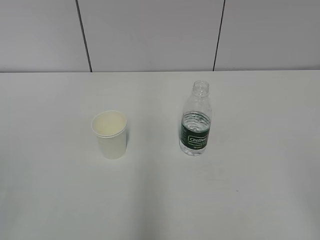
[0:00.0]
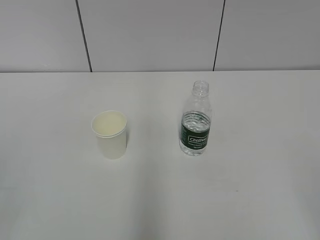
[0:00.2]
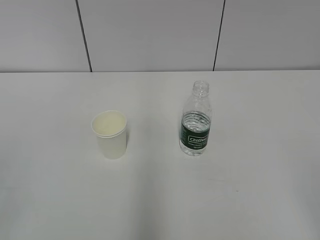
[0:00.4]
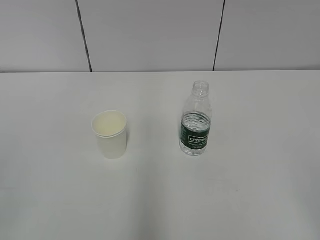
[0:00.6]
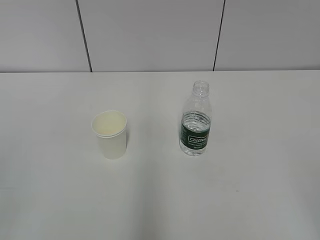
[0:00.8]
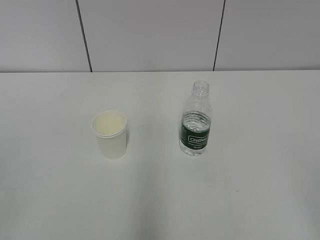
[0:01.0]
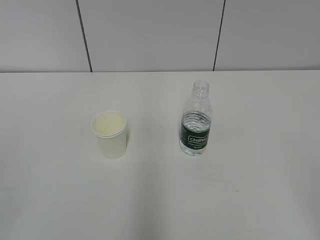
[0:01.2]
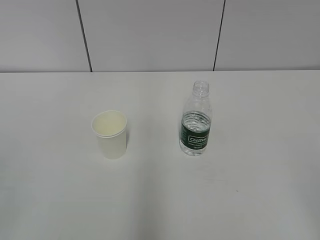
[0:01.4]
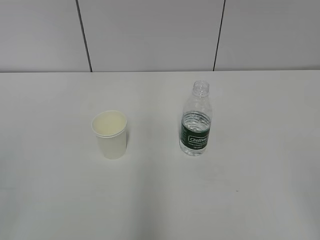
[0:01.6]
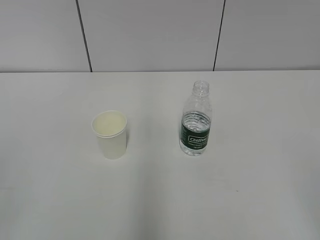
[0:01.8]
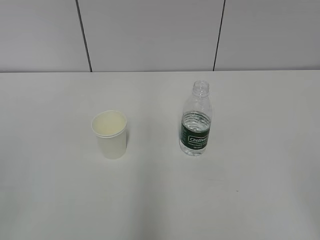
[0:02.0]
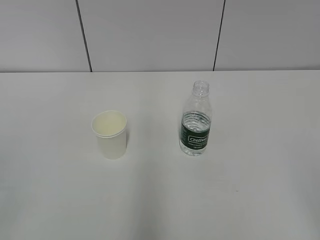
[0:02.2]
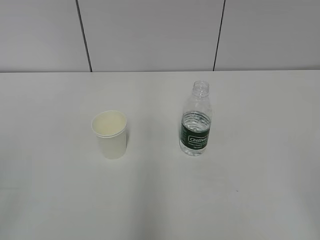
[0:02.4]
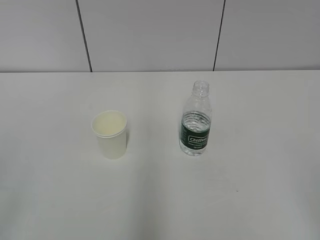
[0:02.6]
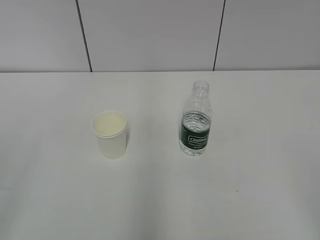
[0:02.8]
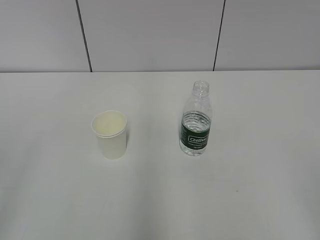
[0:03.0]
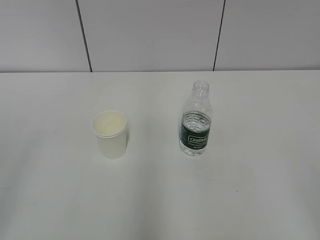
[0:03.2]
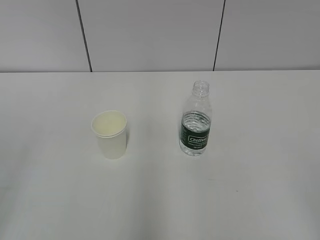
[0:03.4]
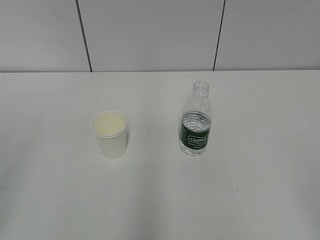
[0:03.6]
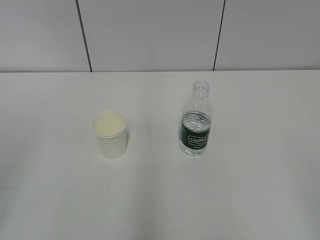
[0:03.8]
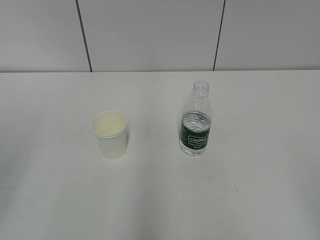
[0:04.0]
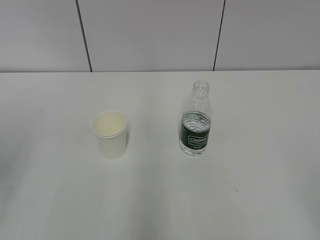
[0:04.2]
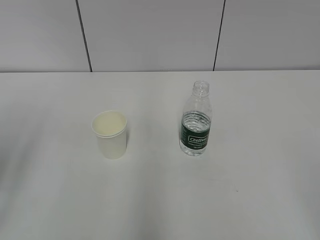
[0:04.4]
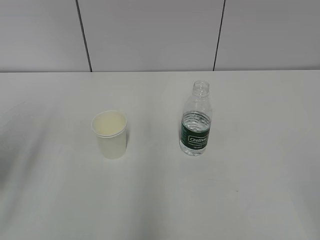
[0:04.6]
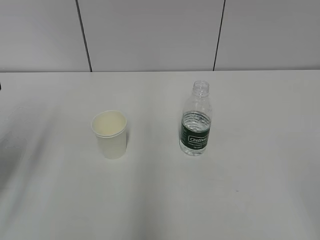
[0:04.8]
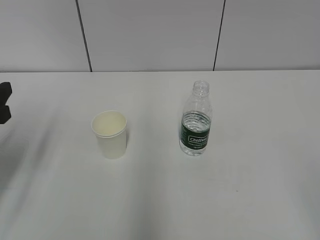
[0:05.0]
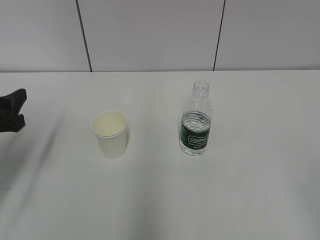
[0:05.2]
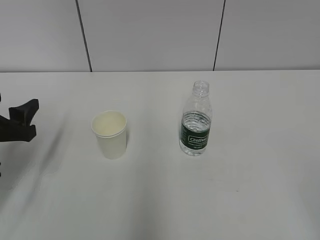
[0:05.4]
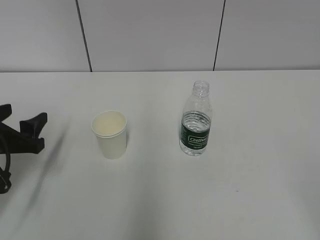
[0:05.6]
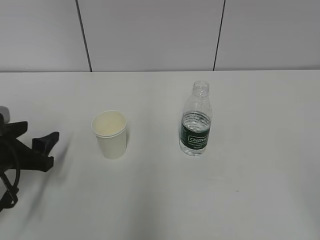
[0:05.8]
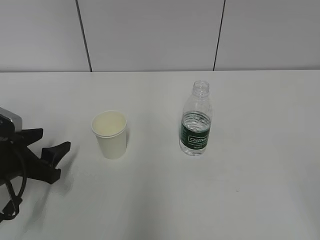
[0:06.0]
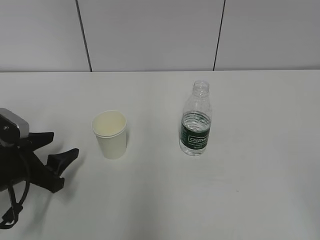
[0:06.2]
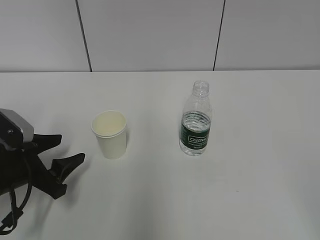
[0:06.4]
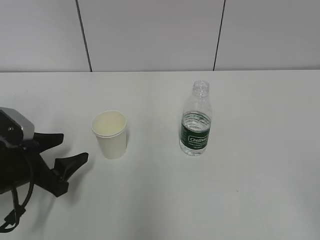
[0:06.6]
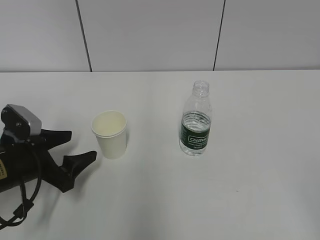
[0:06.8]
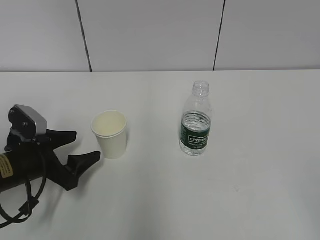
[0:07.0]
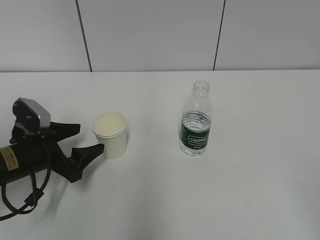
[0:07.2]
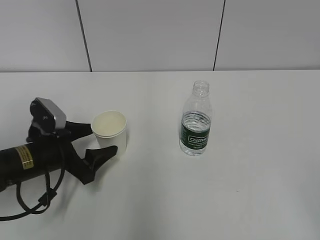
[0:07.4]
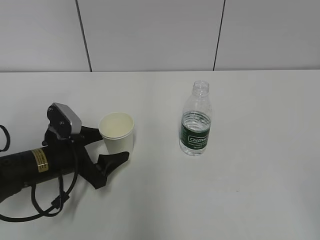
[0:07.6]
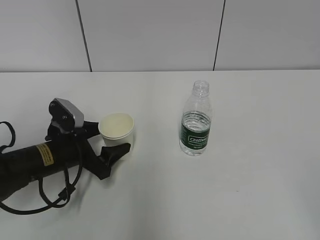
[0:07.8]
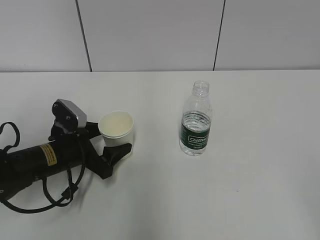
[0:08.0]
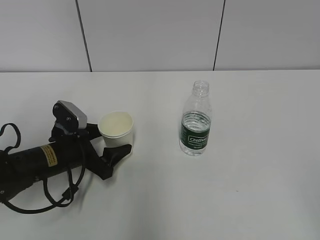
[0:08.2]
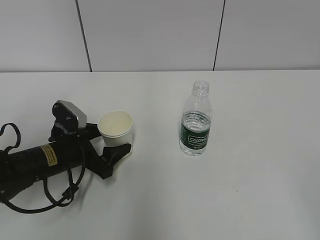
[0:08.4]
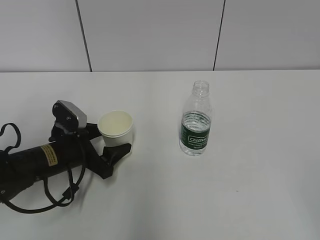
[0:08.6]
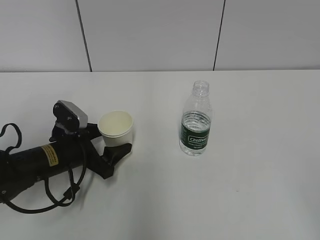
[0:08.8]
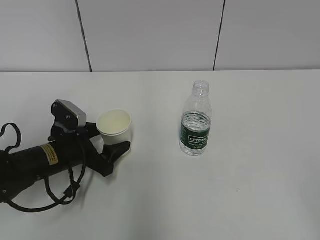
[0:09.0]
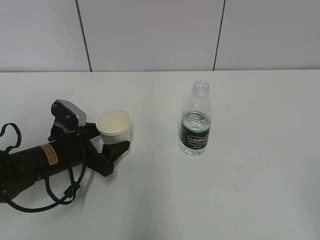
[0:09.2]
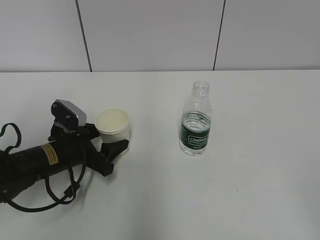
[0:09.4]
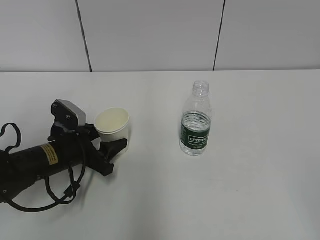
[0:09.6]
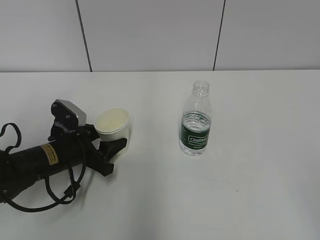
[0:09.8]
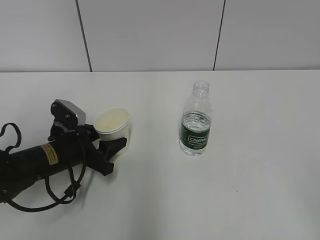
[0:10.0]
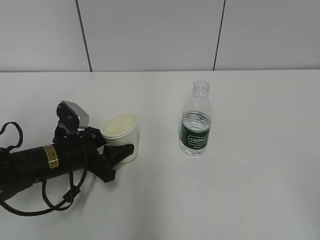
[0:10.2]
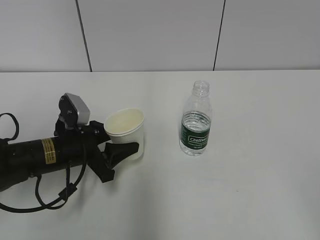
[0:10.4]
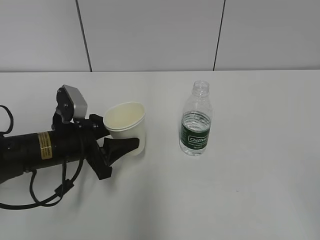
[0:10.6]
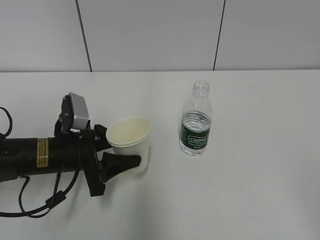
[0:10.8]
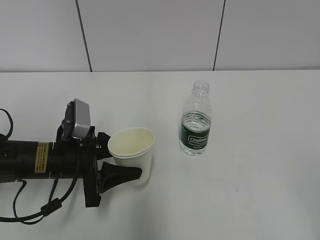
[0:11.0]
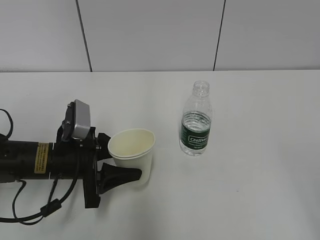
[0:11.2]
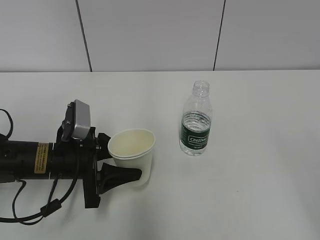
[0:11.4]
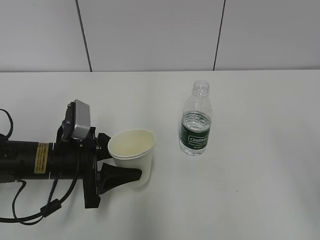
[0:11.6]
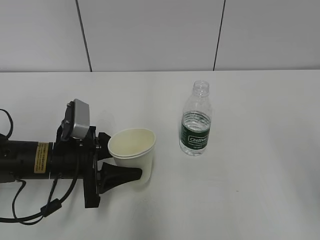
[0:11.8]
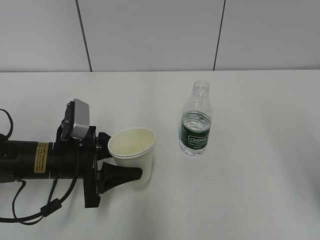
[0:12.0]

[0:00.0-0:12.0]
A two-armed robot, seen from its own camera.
Step, 0:00.0 to 0:08.0: Grab the paper cup with the left hand.
0:04.4 to 0:06.0: The left gripper goes some 20 cm downward and forward.
0:06.0 to 0:07.6: The left gripper goes roughly 5 cm to the right, and opens its fingers.
0:07.6 to 0:09.0: The grippers make only small movements.
0:09.0 to 0:10.4: The left gripper closes up.
0:10.4 to 0:12.0: The right gripper is displaced forward by approximately 15 cm.

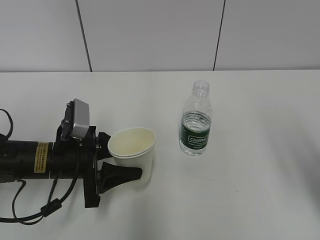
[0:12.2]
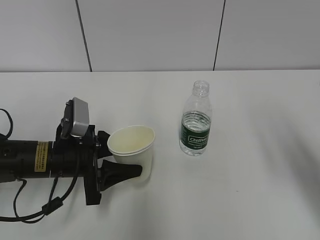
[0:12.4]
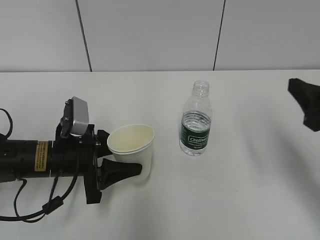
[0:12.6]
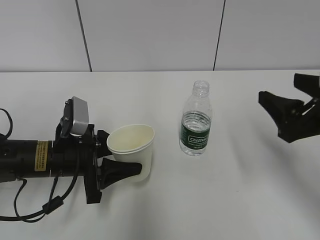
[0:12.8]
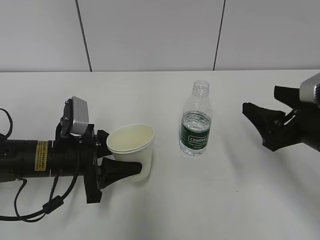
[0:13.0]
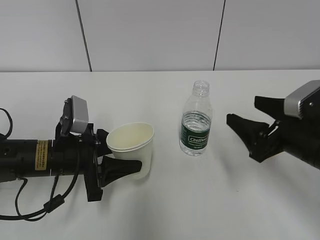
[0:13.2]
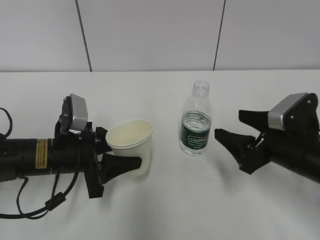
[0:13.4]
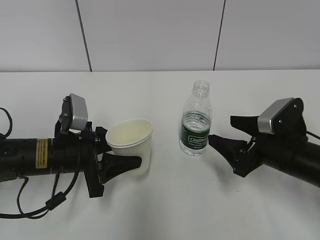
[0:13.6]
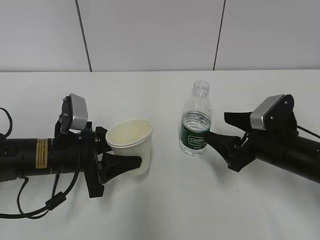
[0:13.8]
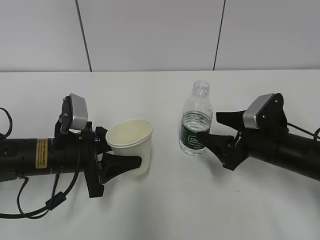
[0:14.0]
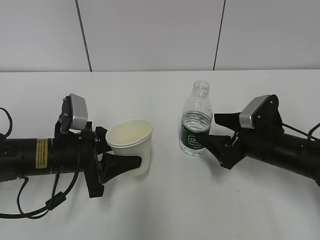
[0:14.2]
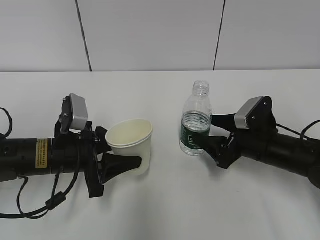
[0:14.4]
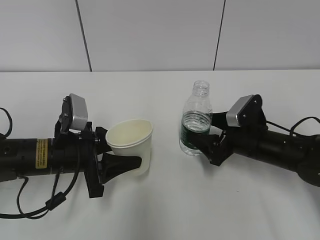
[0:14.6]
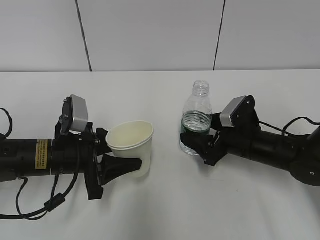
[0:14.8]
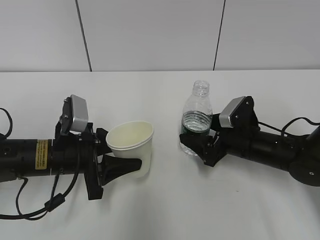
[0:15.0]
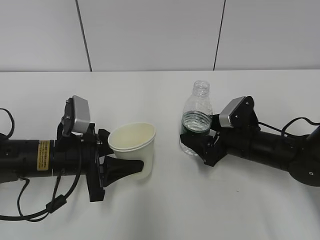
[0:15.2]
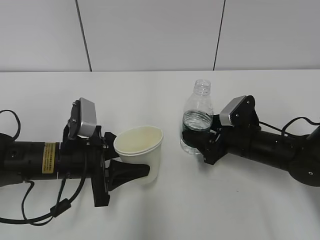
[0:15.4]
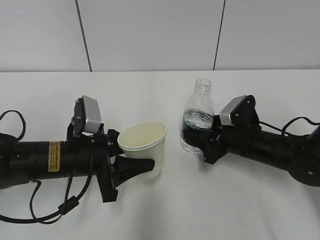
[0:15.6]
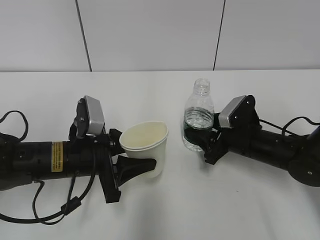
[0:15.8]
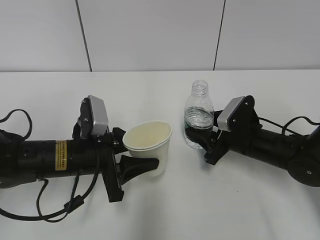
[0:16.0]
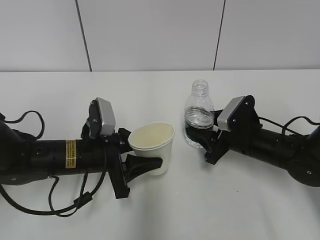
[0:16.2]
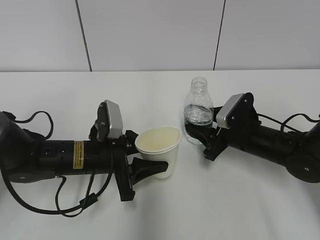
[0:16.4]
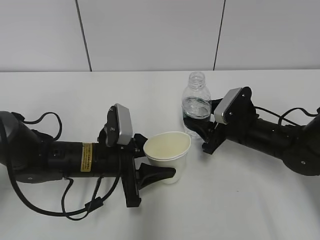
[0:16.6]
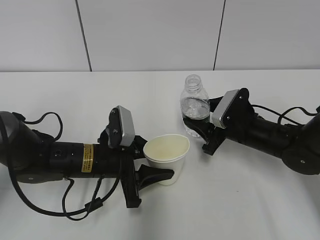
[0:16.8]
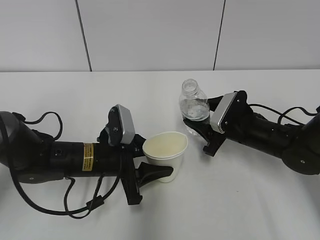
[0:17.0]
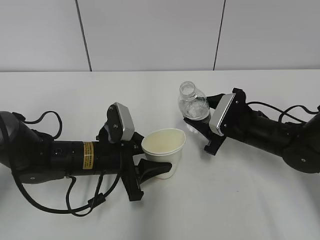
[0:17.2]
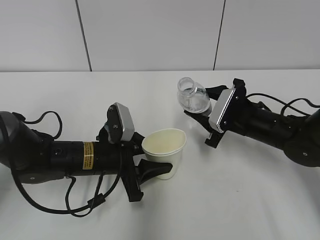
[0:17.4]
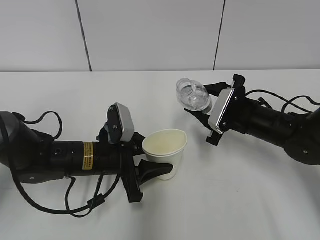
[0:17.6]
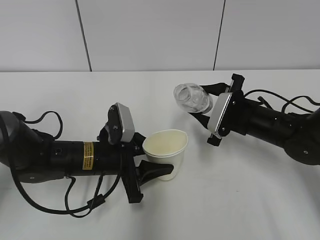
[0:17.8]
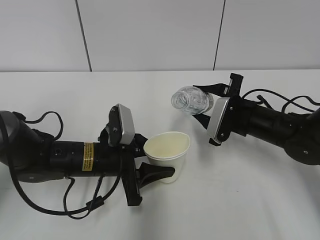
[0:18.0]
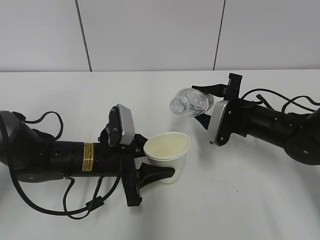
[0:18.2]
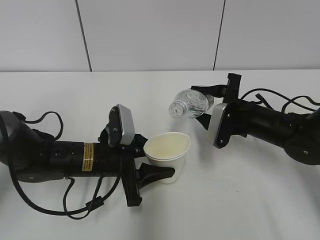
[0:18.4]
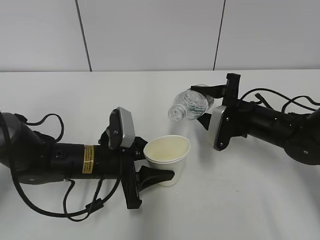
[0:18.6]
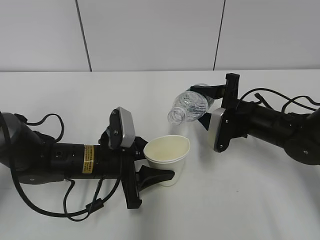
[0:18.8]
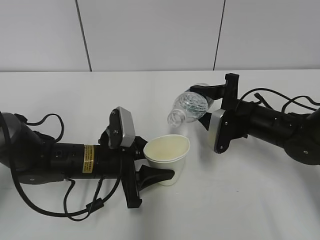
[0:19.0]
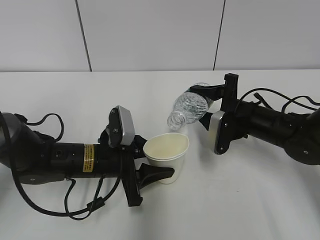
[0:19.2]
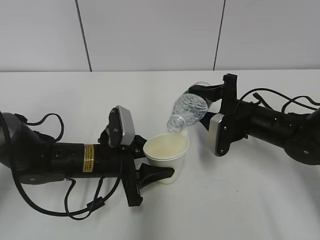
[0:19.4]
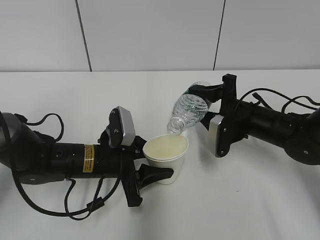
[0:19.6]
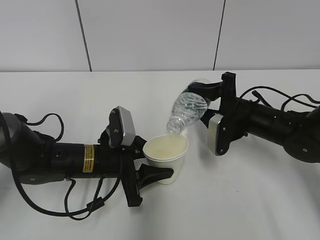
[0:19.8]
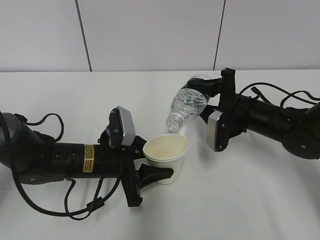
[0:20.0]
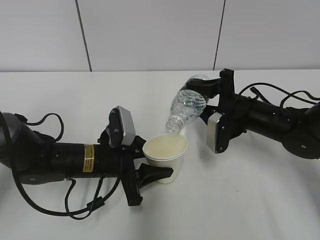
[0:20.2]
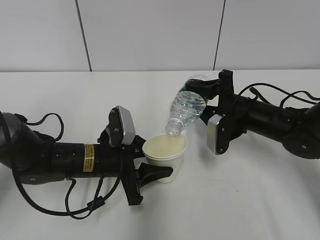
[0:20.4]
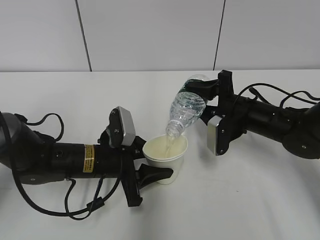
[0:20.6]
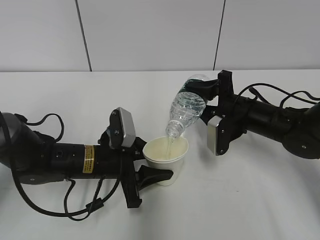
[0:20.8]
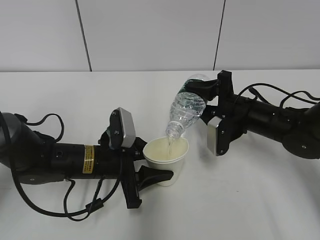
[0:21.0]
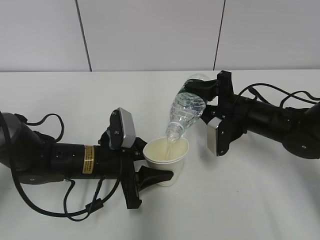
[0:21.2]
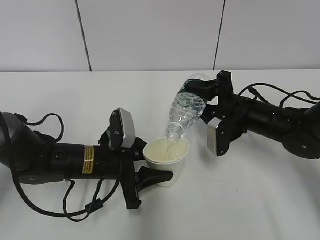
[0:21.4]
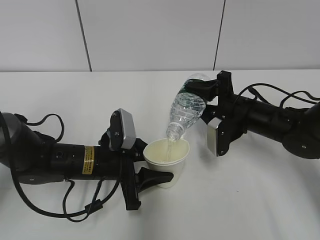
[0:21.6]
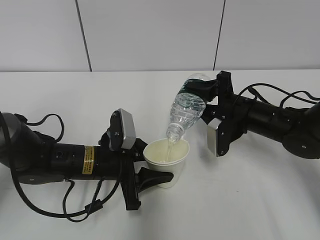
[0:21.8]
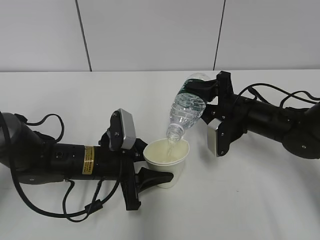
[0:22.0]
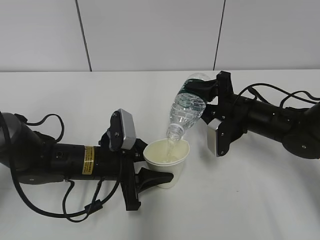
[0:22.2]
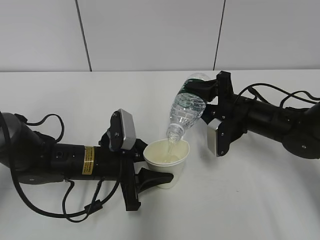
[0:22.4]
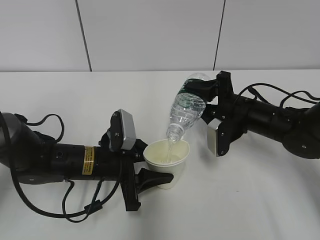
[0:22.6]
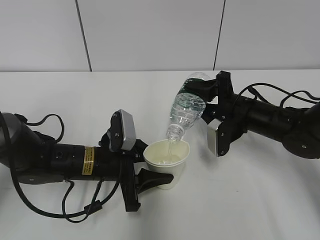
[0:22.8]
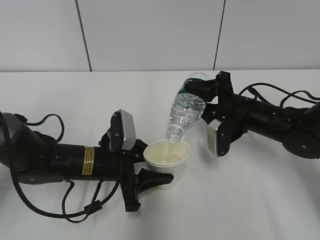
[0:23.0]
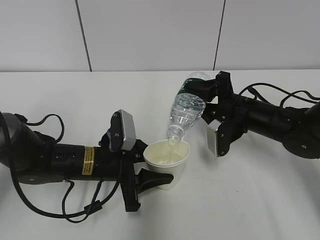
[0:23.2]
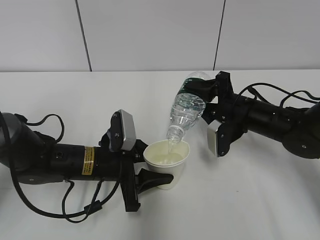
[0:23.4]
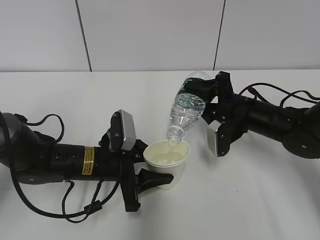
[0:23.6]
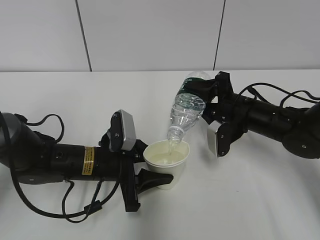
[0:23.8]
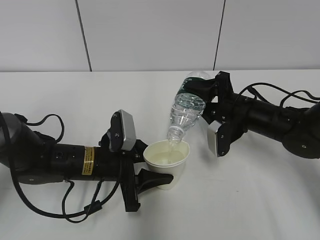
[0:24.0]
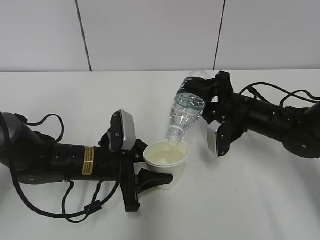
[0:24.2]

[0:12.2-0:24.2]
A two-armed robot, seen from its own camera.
Step, 0:13.0 to 0:16.8: Lift the paper cup with the left hand.
Step, 0:17.0 to 0:20.6: Fill water with the left hand.
Step, 0:17.0 to 0:20.6: Pour water with the right hand.
0:12.2 to 0:13.8: The right gripper shifts roughly 25 cm downward, forward and to the left.
0:13.8 to 0:15.2: The right gripper travels forward by some 5 cm.
0:15.2 to 0:16.6: The left gripper shifts some 5 cm to the right. Meanwhile the right gripper closes.
0:19.8 to 0:21.2: The grippers make only small movements.
0:21.2 to 0:22.6: Both grippers stay put.
0:22.6 to 0:24.2: Neither gripper changes place.
